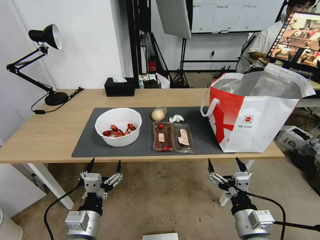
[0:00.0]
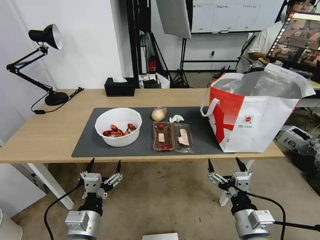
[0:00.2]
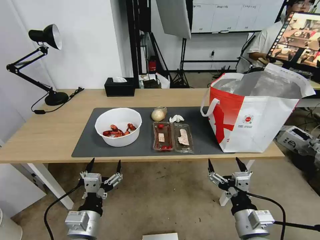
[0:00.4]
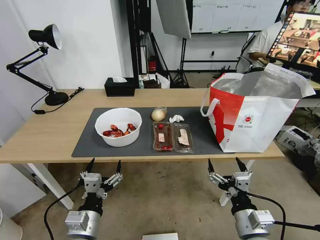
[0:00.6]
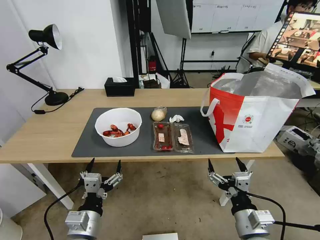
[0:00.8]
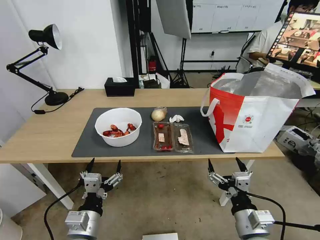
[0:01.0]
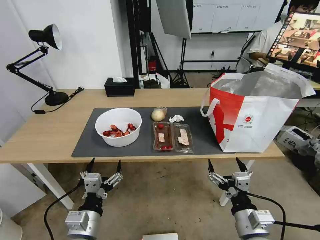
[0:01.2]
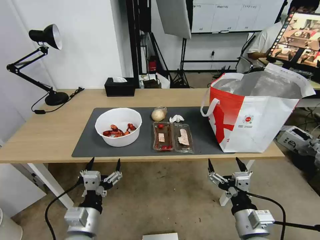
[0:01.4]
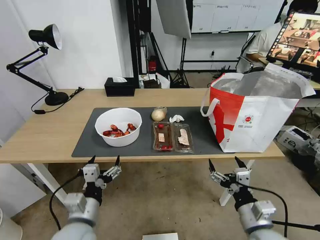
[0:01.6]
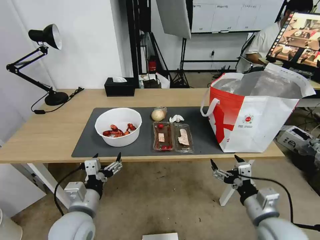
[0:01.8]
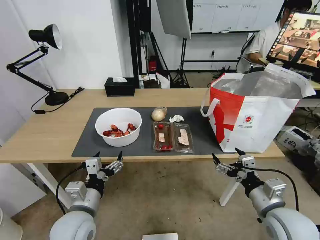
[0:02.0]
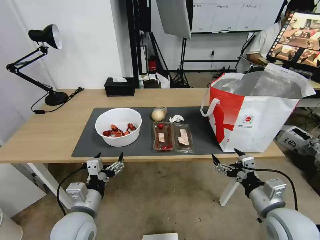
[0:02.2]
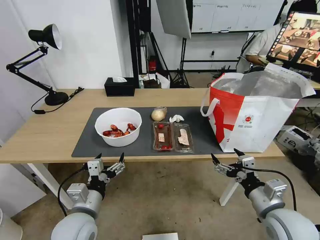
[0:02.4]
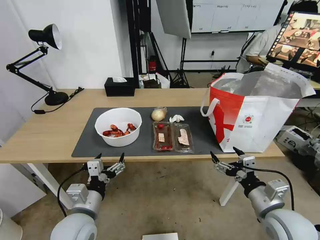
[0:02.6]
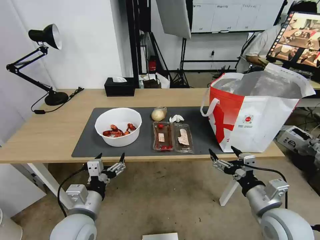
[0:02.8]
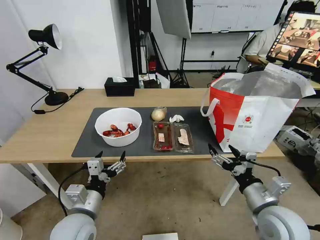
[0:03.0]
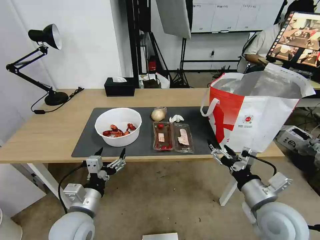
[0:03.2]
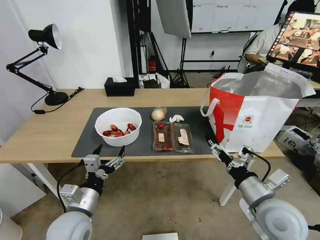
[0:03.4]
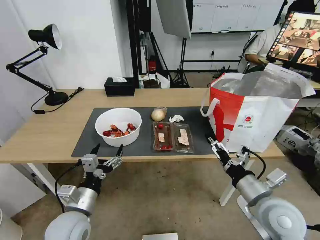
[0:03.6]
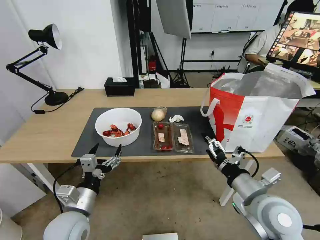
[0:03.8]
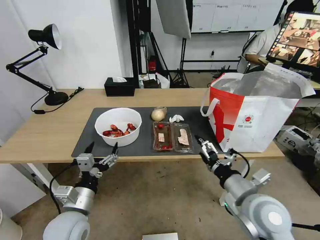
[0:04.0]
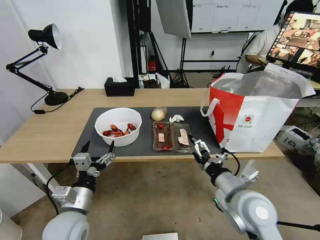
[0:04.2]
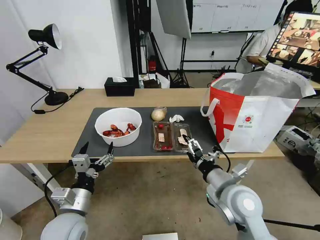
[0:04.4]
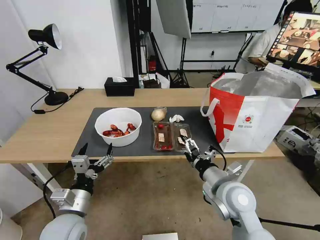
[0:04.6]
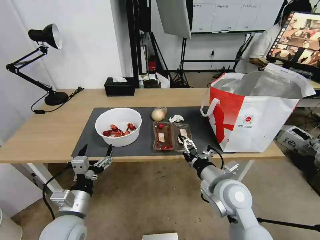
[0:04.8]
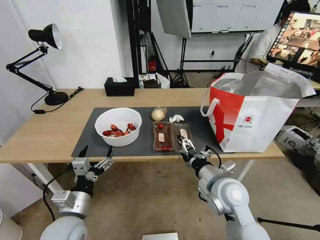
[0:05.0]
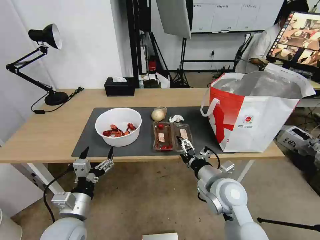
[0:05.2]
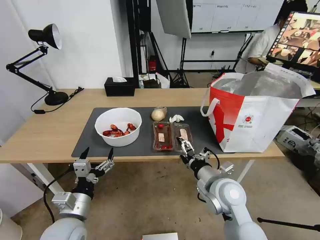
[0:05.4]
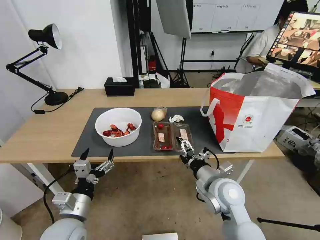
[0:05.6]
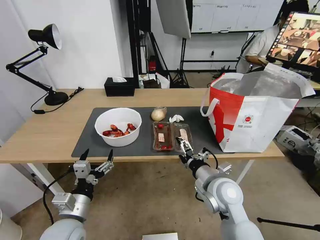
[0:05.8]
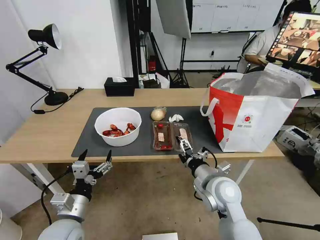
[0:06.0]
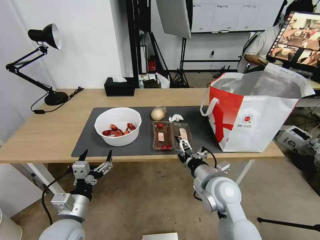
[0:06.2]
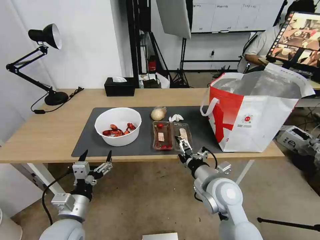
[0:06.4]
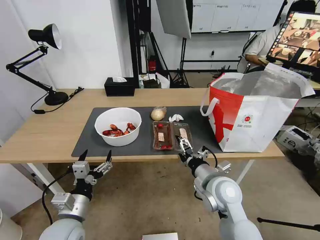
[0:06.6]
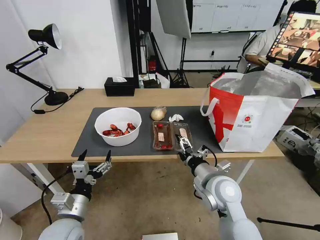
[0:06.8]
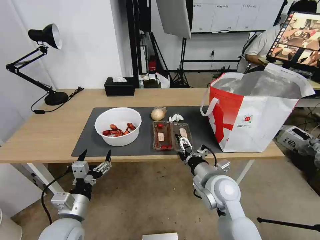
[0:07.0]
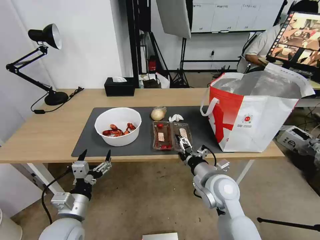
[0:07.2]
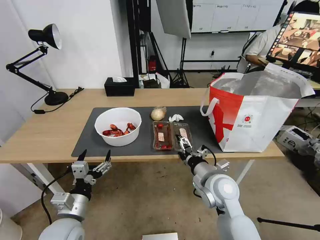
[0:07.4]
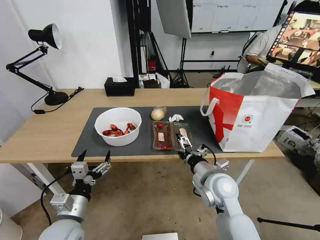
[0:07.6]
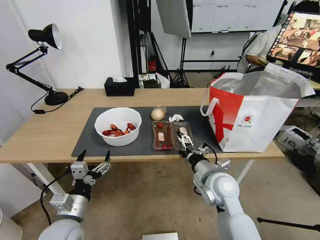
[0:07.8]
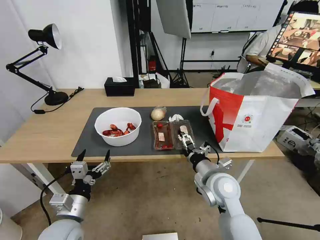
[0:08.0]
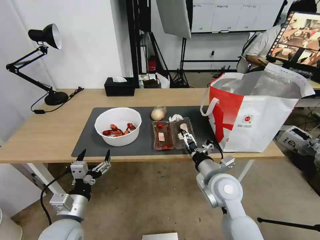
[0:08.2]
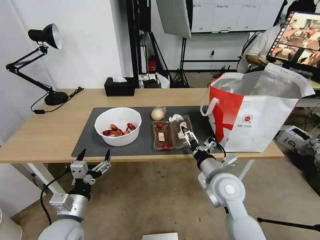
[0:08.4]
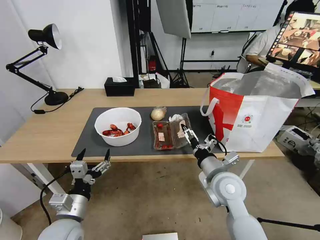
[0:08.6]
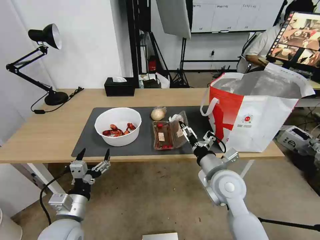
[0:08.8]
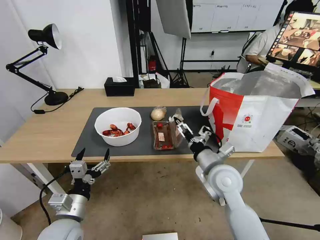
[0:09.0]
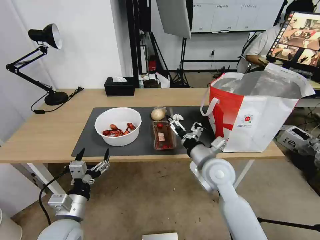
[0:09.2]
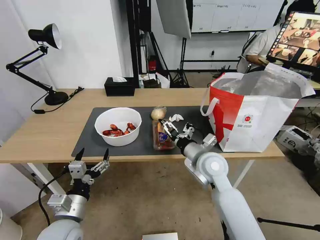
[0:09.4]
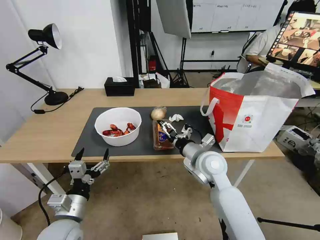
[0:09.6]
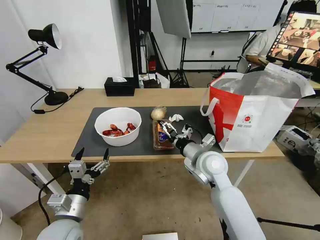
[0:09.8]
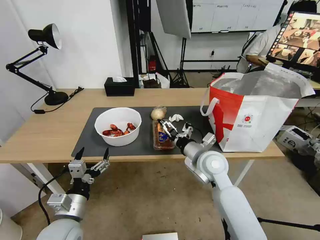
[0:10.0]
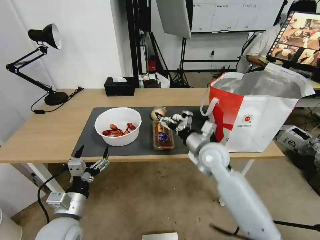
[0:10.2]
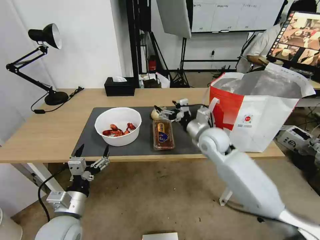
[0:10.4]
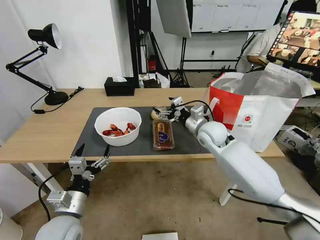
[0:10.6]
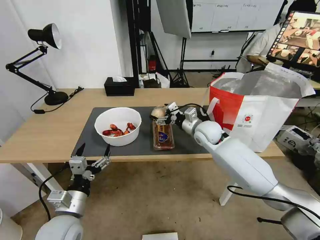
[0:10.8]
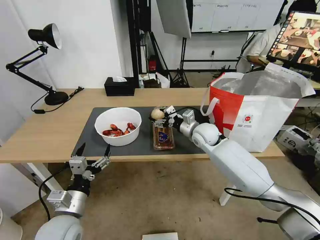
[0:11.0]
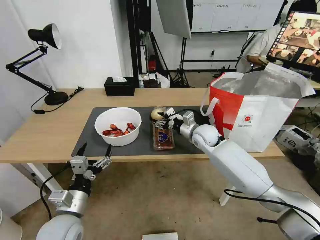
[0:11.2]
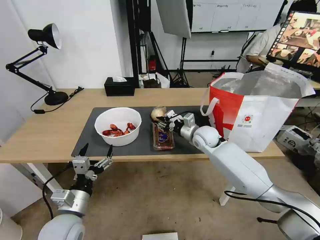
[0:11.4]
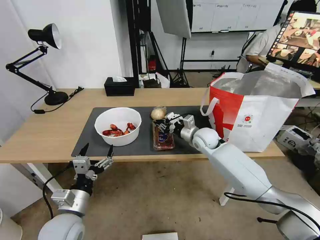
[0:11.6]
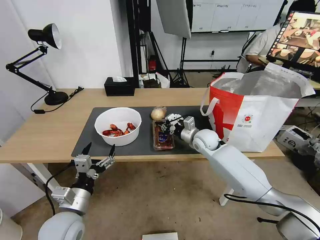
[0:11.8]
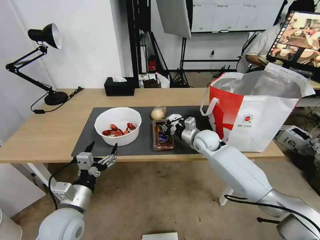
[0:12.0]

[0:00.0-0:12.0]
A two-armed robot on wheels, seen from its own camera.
Task of the whole recording: Pick up the trash from the table and place it into the takeout bag.
0:01.6 to 0:03.0: The right gripper changes place by about 5 cm.
0:03.0 to 0:04.4: The right gripper shifts some 10 cm to the left.
0:04.4 to 0:06.0: The right gripper moves approximately 5 cm.
0:06.0 to 0:07.6: The two grippers keep their place.
0:09.0 to 0:10.4: The right gripper shifts some 15 cm forward.
0:10.4 to 0:12.0: The right gripper is displaced downward and forward by approximately 10 cm, and closes.

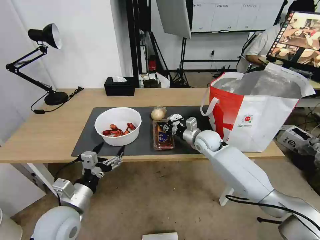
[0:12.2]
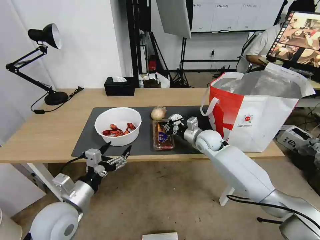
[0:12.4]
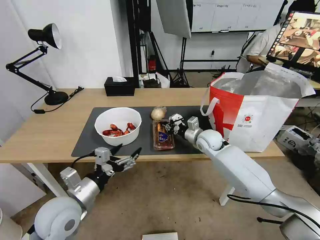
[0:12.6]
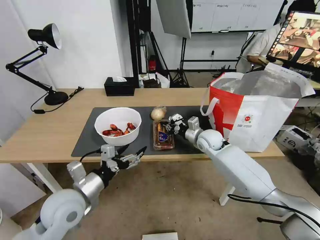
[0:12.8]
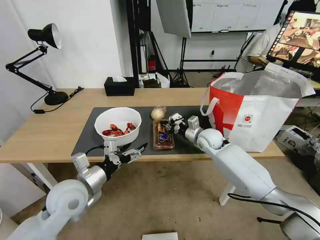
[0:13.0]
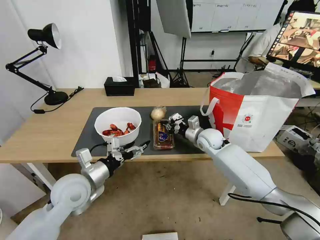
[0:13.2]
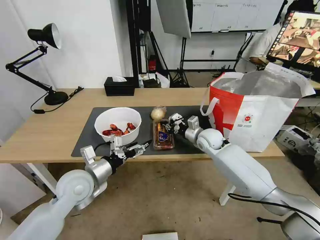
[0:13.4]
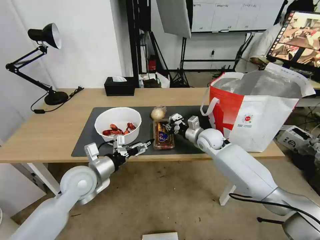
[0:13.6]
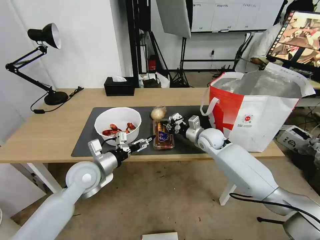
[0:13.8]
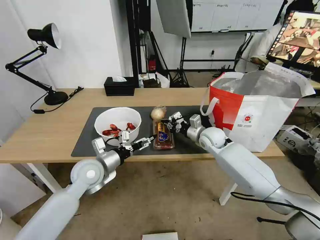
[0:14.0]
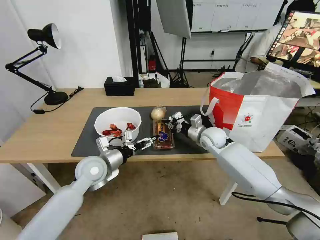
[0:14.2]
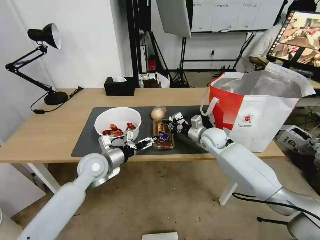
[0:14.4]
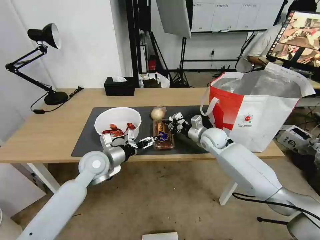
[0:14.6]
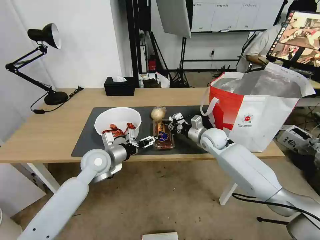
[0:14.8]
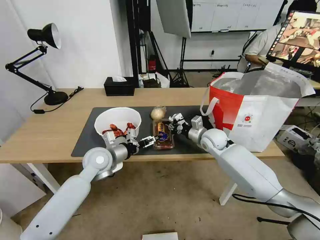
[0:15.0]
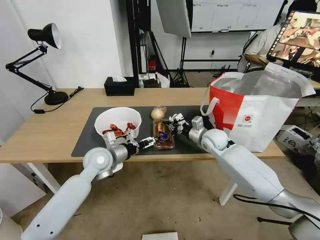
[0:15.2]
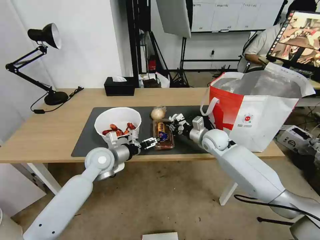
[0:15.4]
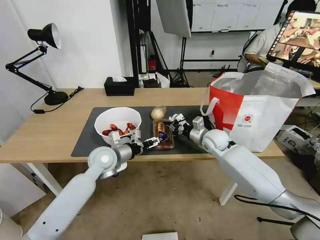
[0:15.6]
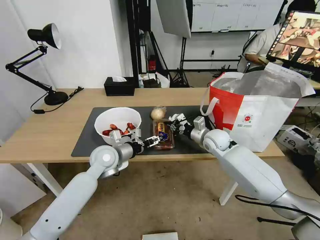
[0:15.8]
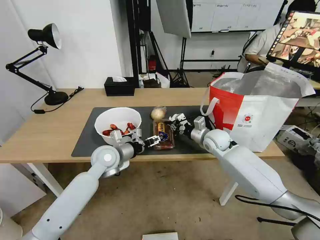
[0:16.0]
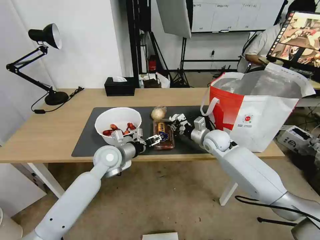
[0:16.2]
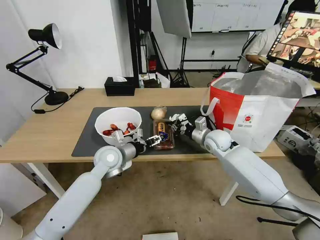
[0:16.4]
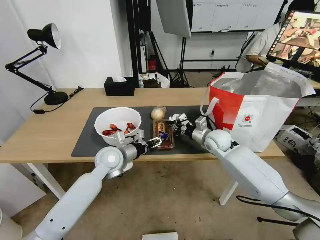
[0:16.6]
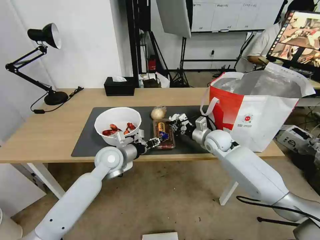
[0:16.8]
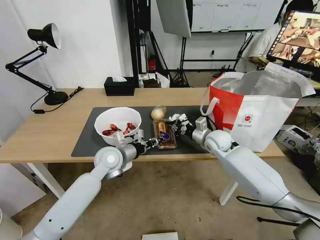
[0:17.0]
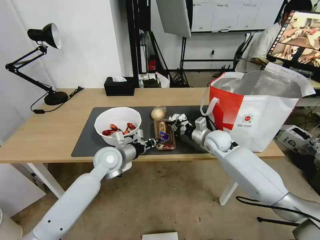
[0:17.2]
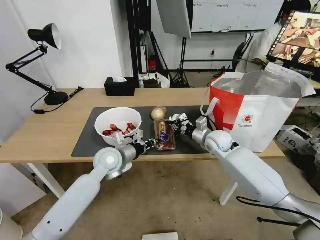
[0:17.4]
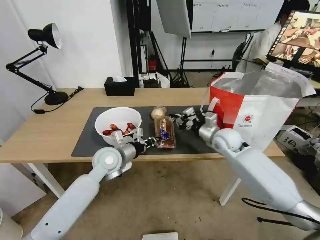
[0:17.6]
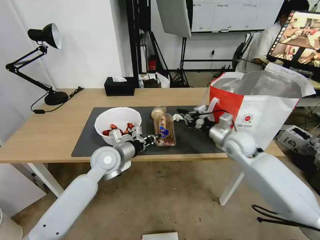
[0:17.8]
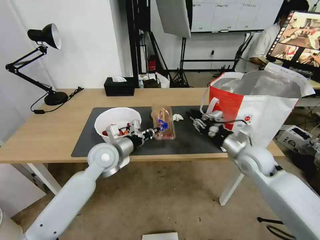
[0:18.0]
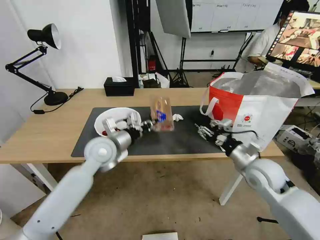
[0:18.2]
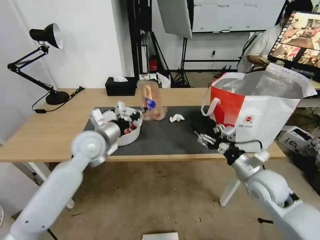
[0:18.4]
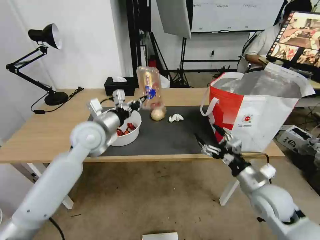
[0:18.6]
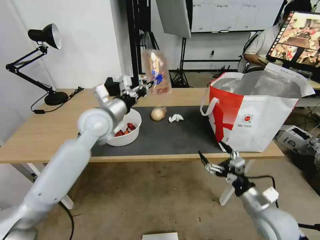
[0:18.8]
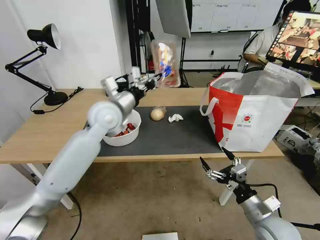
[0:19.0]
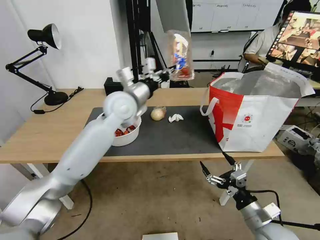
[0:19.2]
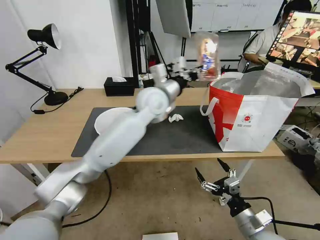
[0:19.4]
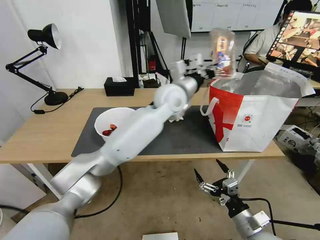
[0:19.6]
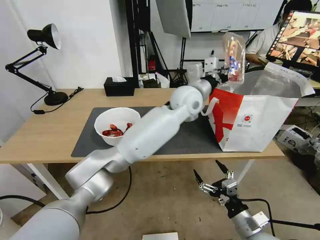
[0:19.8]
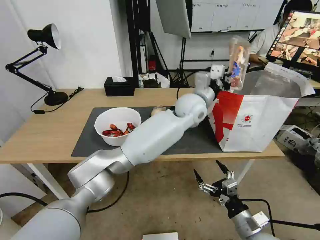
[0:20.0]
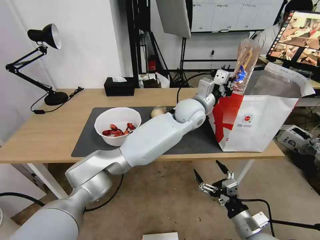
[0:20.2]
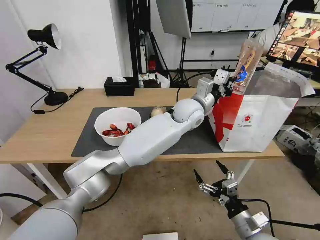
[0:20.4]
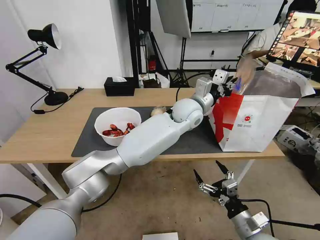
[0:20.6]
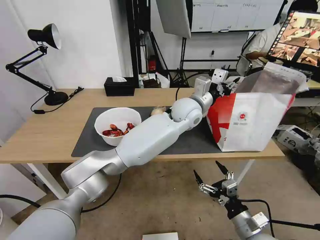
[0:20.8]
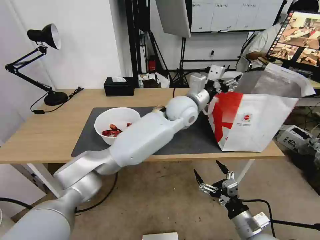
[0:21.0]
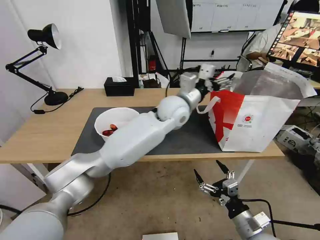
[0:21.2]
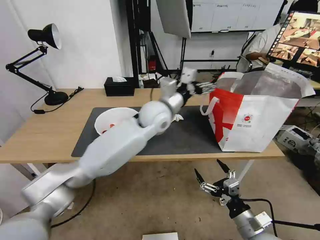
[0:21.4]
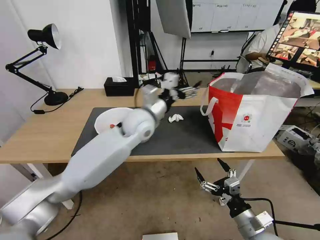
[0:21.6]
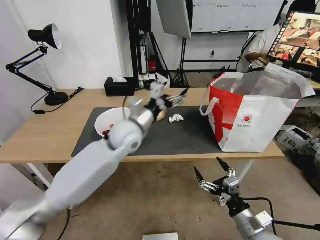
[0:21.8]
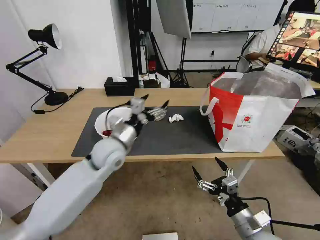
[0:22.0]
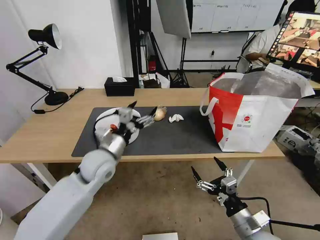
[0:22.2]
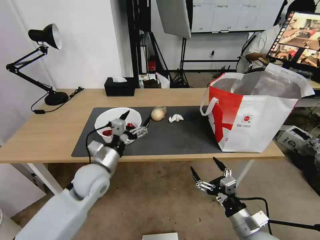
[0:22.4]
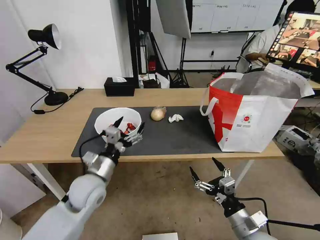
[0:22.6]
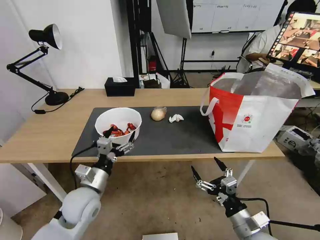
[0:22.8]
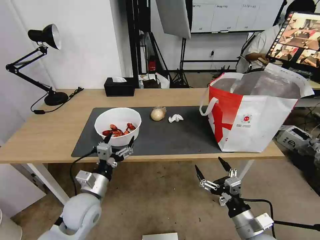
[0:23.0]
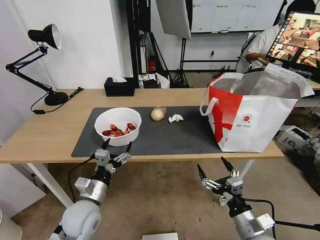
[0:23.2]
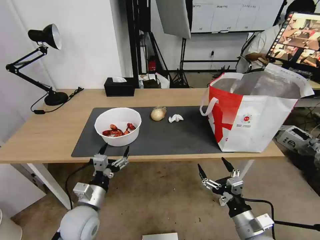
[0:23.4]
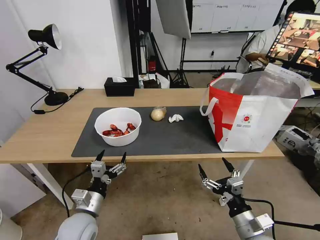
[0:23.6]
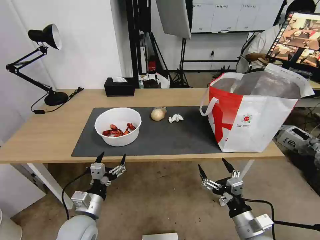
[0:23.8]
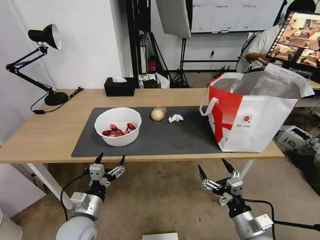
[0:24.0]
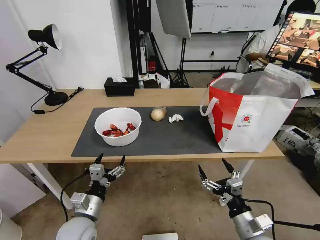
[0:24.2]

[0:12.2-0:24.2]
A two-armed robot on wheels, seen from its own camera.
Task of the whole recording: Pick up the trash from the table and place it into the takeout bag.
0:12.2 to 0:13.8: The left gripper is displaced forward by about 10 cm.
0:13.8 to 0:15.2: The left gripper travels forward by some 5 cm.
0:15.2 to 0:16.6: The left gripper closes up.
0:16.6 to 0:18.2: The left gripper moves upward, roughly 5 cm, and closes up. Meanwhile the right gripper heads backward and to the right, covering roughly 20 cm, and opens.
0:18.2 to 0:19.8: The left gripper goes roughly 30 cm to the right and upward. The right gripper is displaced backward and downward by about 20 cm, and opens its fingers.
0:19.8 to 0:21.2: The left gripper shifts by roughly 5 cm, and opens up.
0:21.2 to 0:22.6: The left gripper moves to the left, backward and downward, some 35 cm.
0:22.6 to 0:24.2: The left gripper shifts about 10 cm backward and downward.
